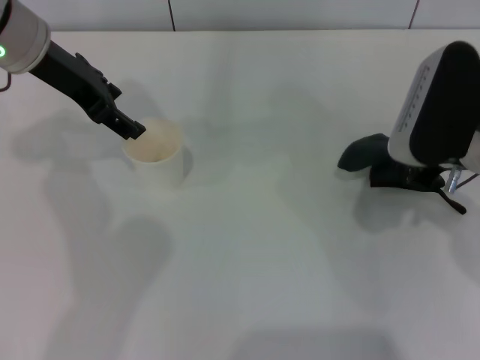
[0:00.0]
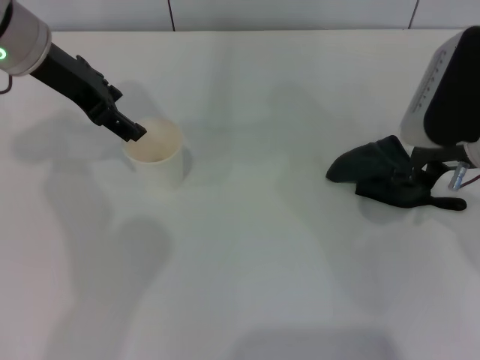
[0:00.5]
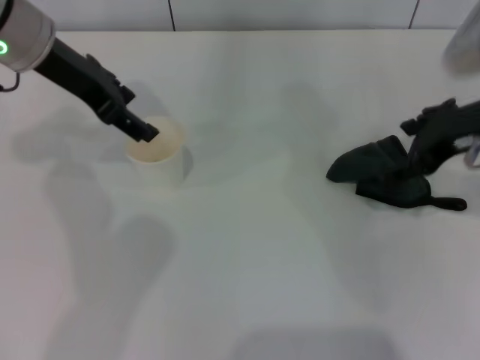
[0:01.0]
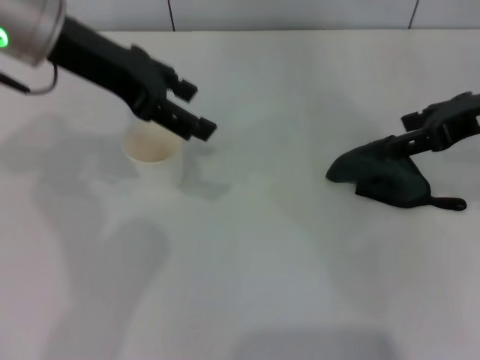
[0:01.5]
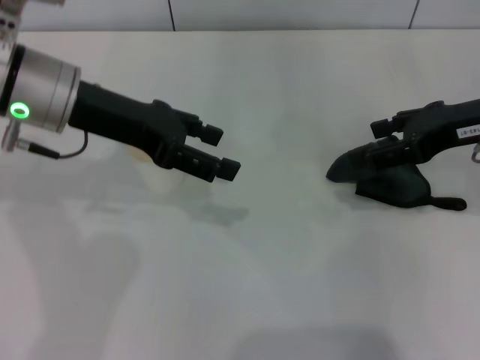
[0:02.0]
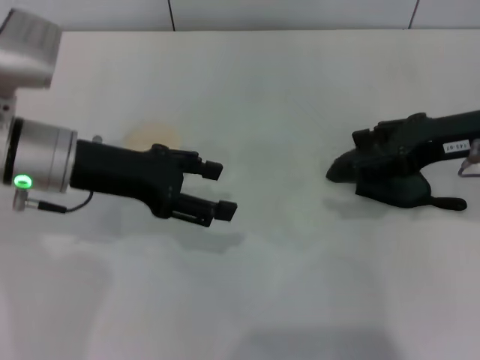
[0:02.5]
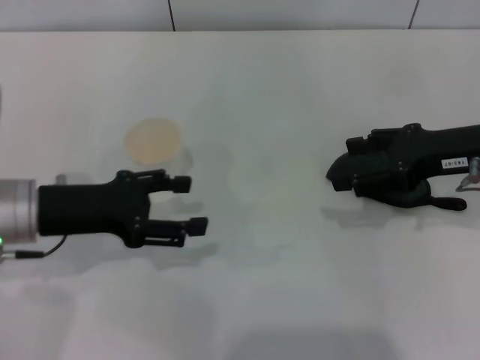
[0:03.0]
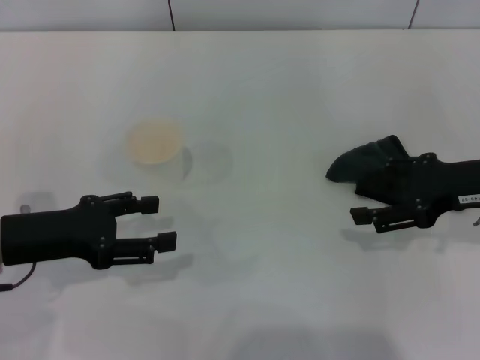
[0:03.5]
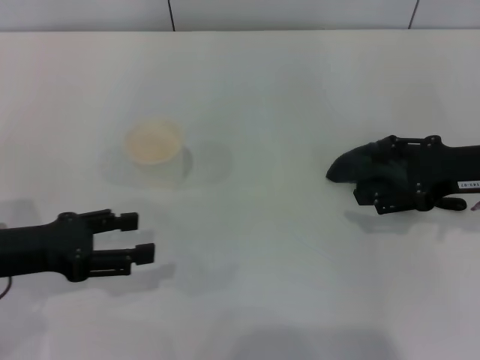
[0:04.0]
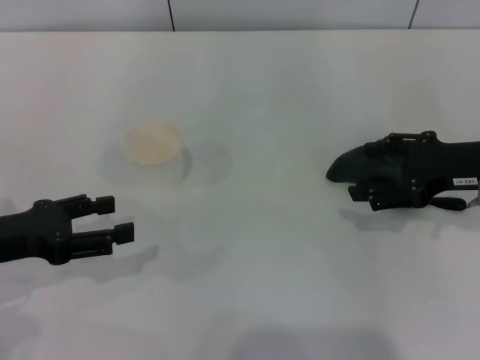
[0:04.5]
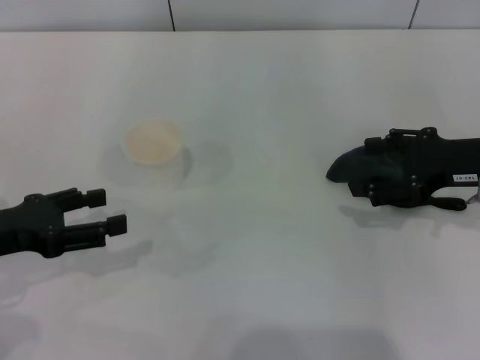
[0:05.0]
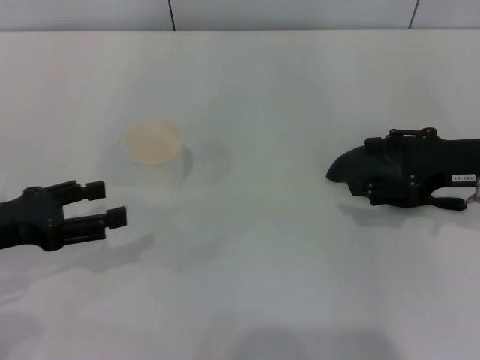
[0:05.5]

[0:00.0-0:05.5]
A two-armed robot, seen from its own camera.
0:00.0 to 0:02.0: The right gripper moves to the right, approximately 5 cm, and opens its fingers. Meanwhile the left gripper goes some 5 cm backward.
0:02.0 to 0:03.5: The left gripper travels downward, backward and to the left by some 15 cm, while the right gripper goes some 5 cm downward.
0:03.5 to 0:05.5: There are only small adjustments of the grippers.
